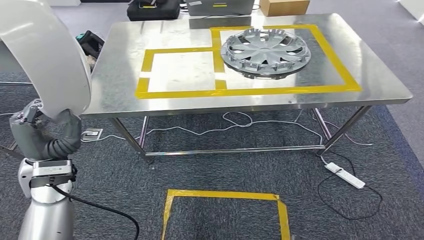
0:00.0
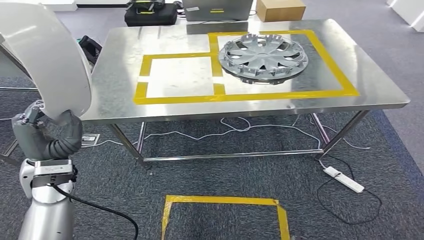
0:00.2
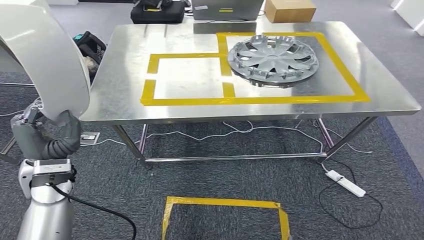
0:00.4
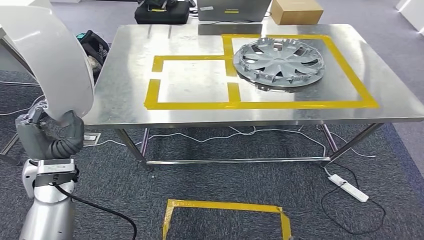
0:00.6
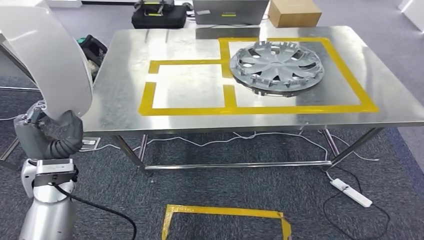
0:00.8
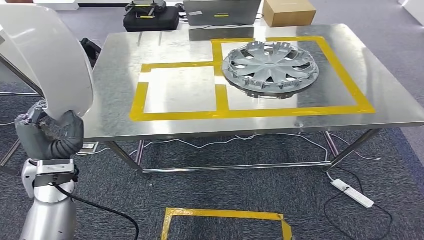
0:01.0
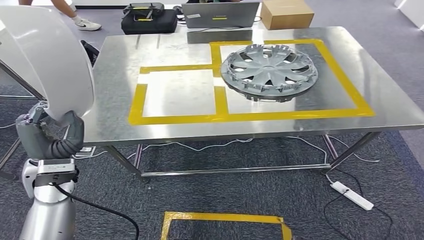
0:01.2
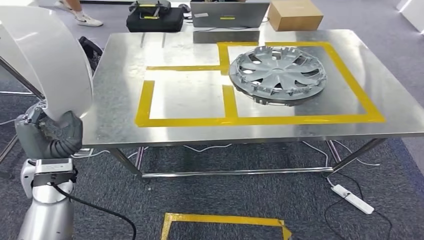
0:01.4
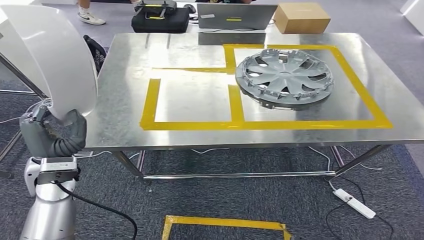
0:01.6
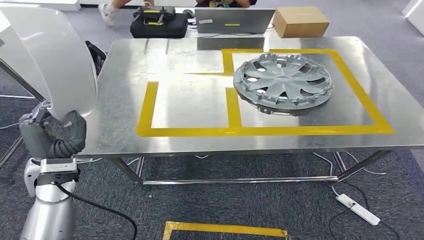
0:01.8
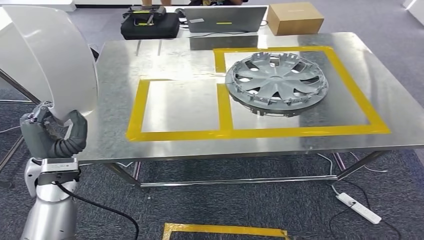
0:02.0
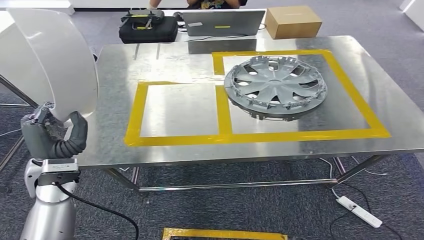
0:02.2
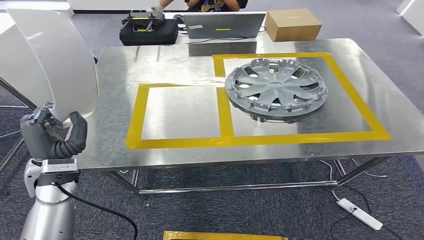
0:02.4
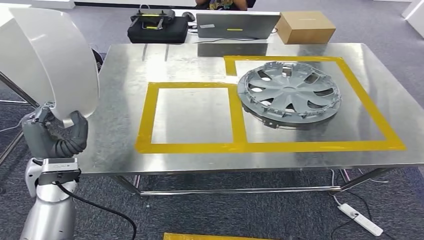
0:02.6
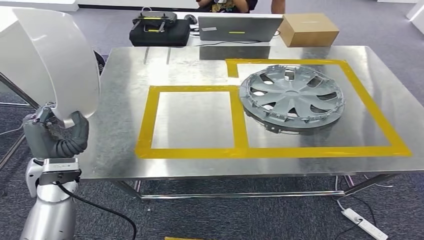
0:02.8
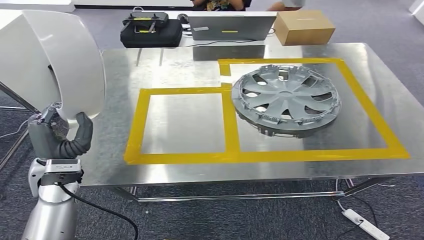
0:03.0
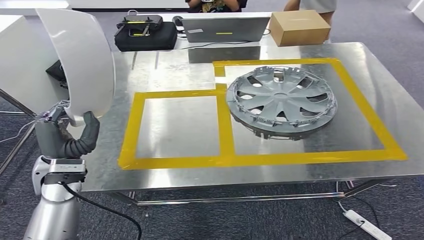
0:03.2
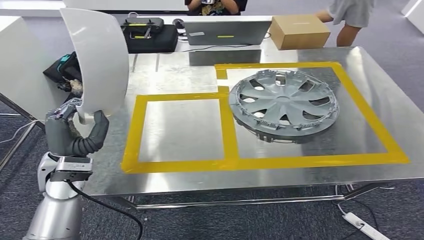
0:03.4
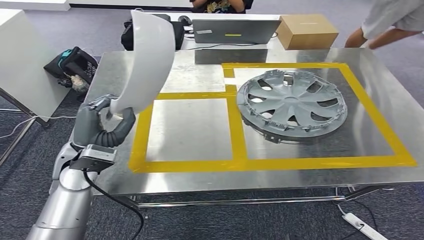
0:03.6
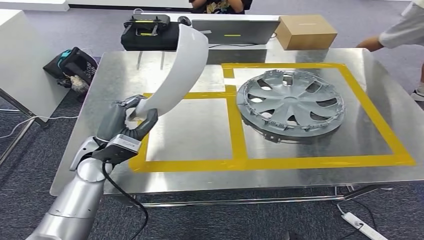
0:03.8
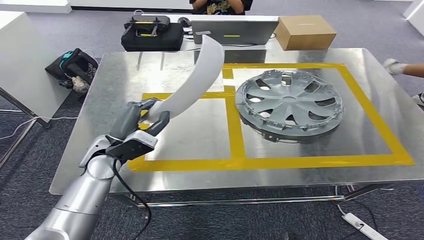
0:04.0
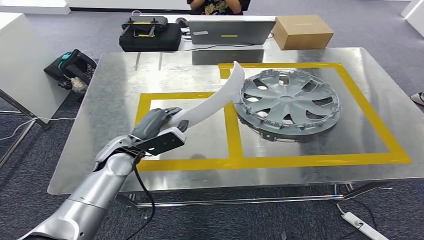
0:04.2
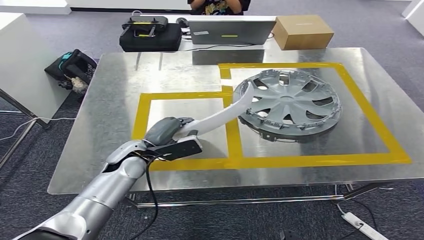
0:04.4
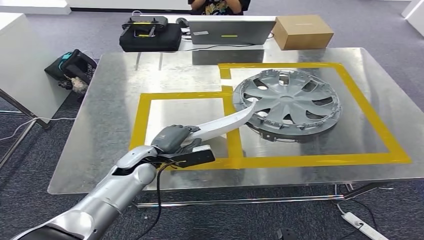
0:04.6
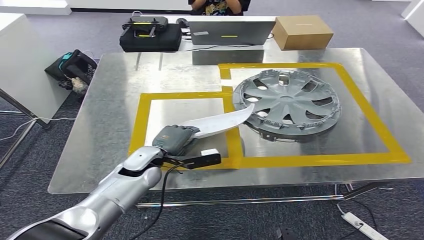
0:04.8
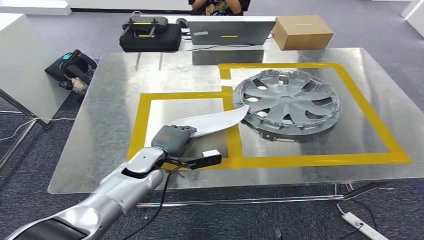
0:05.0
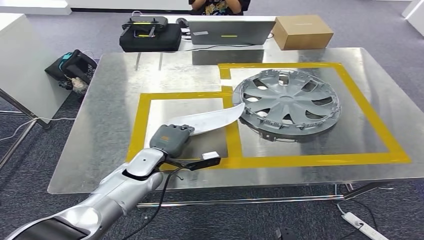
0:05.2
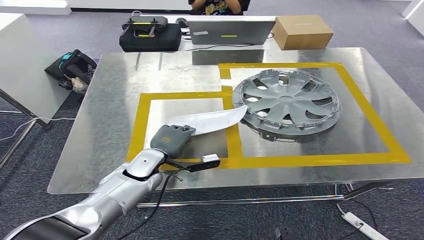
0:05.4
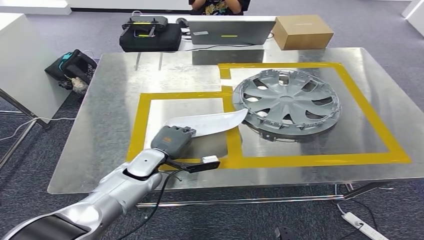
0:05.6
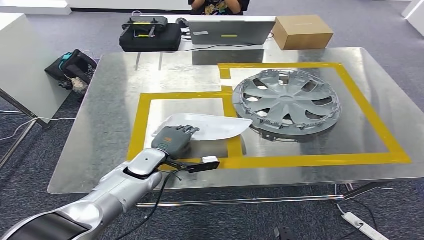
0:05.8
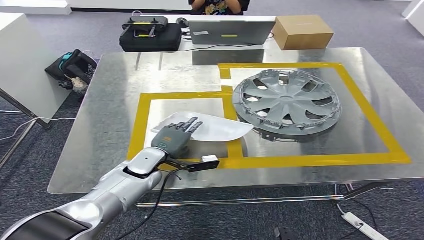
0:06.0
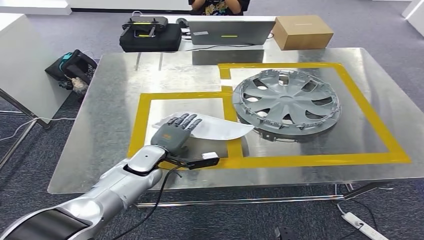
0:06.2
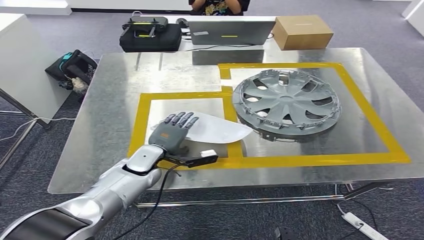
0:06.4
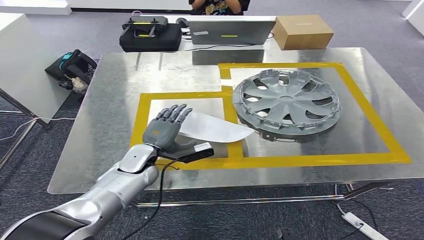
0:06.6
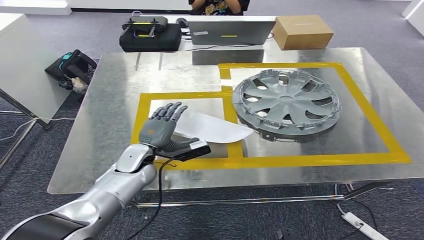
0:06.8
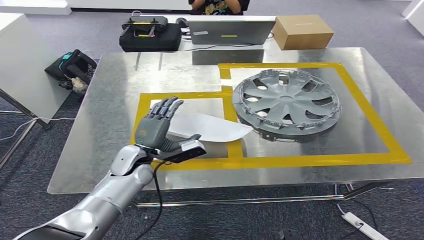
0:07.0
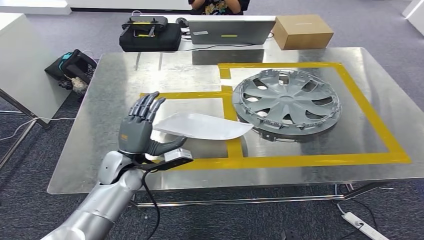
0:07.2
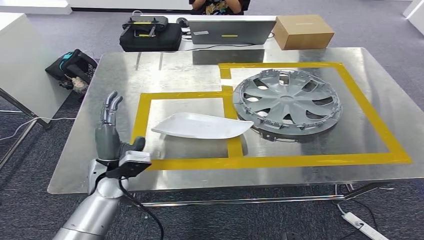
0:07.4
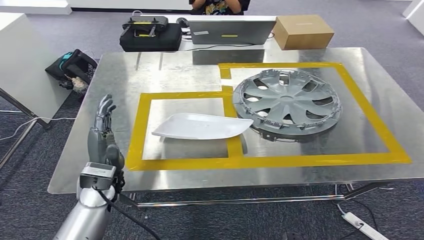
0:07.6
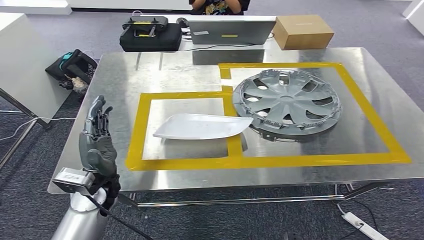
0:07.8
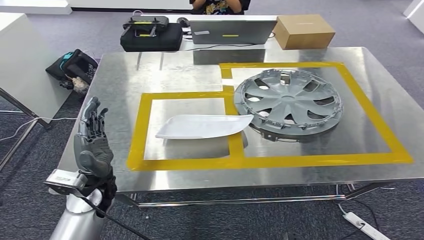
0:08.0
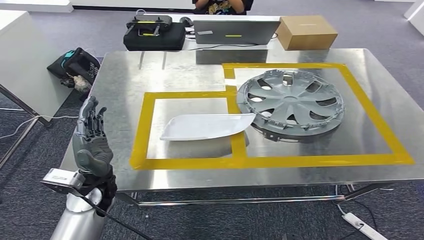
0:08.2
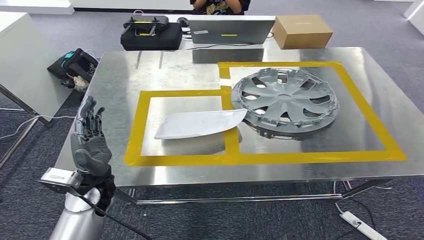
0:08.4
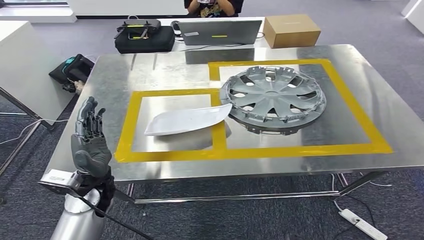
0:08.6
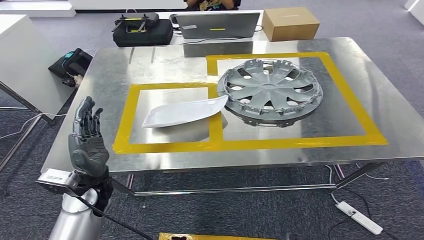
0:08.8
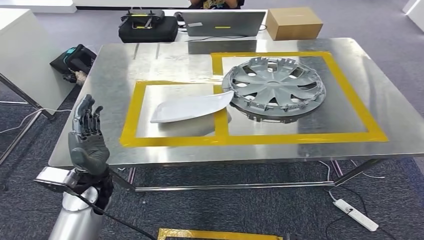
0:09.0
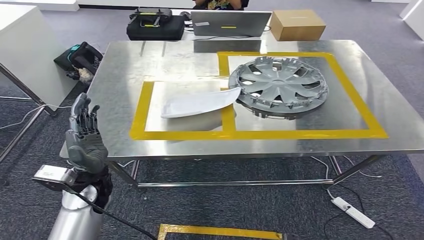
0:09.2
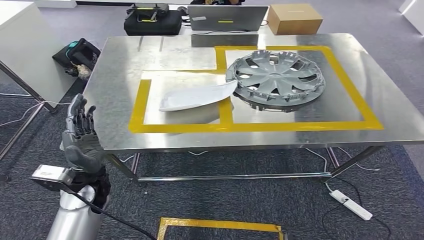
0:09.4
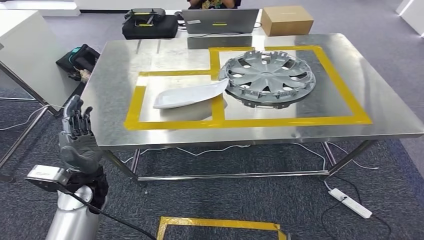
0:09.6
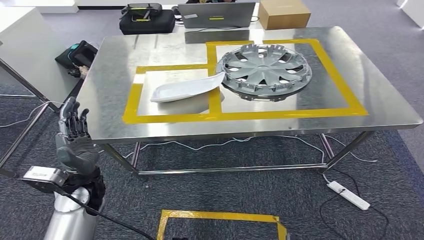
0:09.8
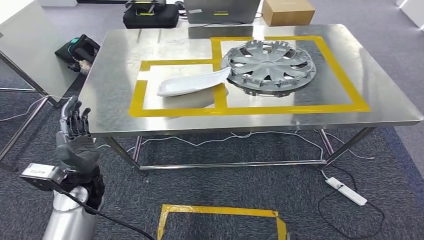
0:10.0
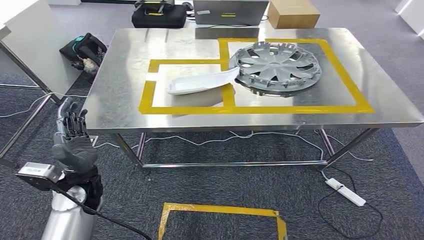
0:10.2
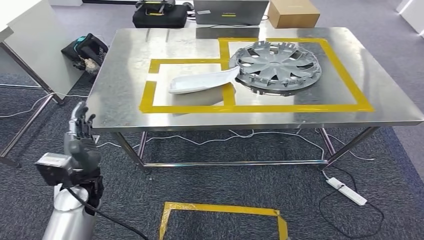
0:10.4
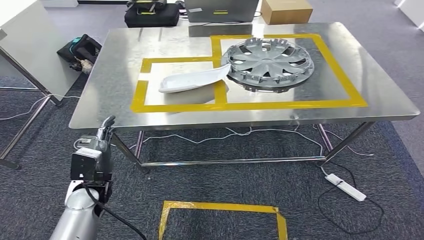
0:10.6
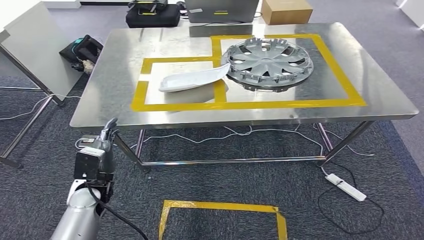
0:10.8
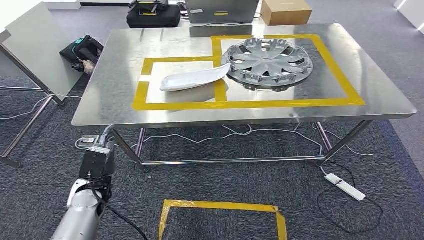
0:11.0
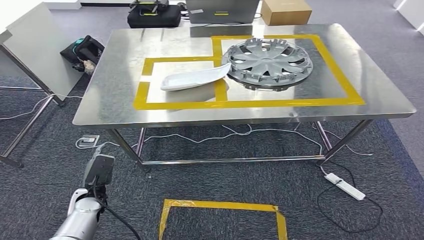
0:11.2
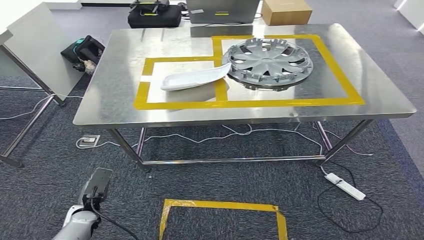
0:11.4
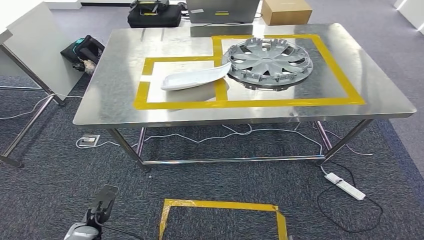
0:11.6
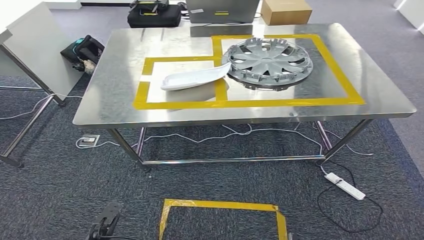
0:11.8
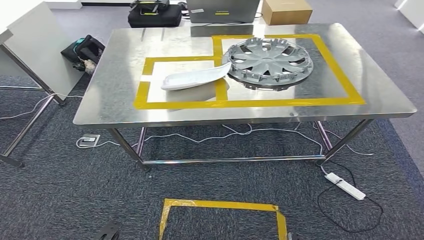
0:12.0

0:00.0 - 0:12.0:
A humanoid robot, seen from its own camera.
Step, 0:01.4 - 0:07.8: Insert the small parts into the corresponding holes on the workbench.
0:04.4 - 0:06.0: The left hand goes about 5 cm downward.
0:06.0 - 0:07.6: The left hand moves backward and upward, some 10 cm.

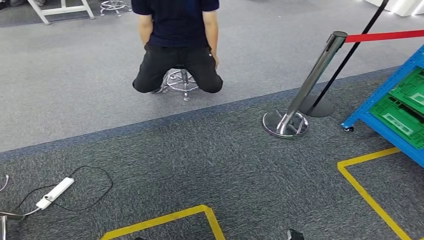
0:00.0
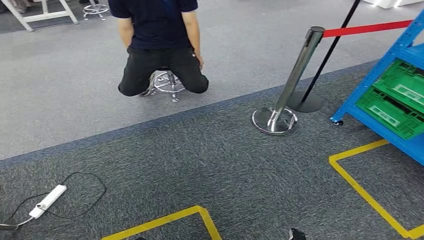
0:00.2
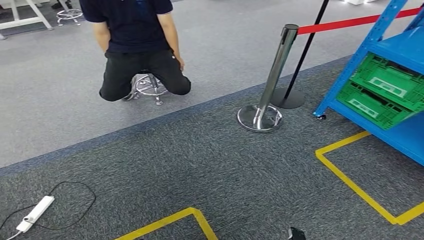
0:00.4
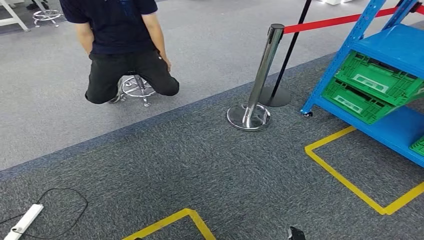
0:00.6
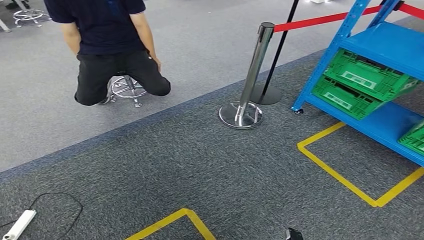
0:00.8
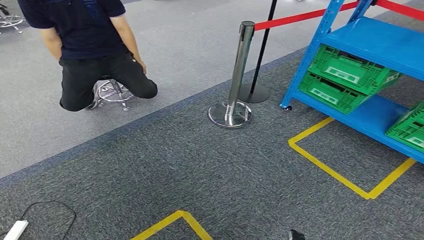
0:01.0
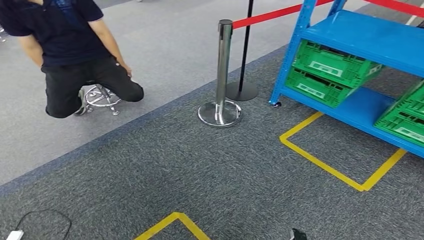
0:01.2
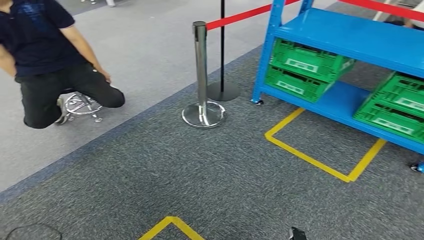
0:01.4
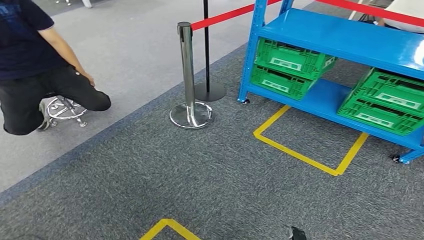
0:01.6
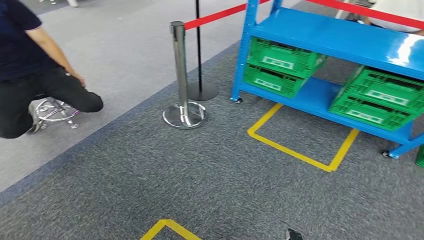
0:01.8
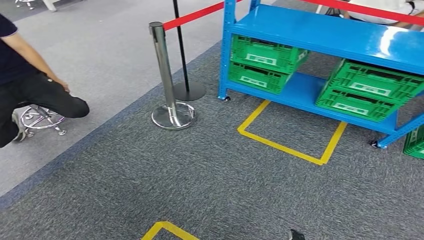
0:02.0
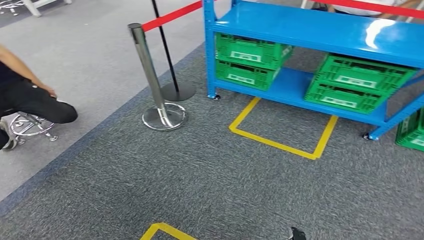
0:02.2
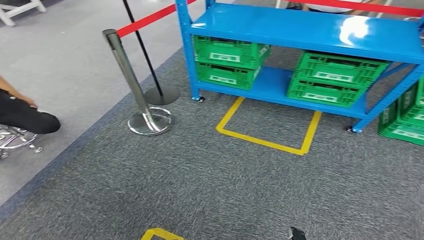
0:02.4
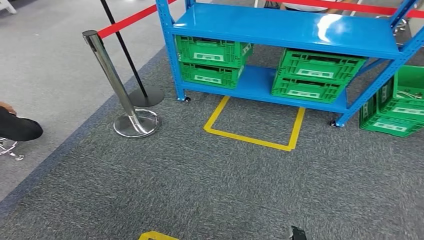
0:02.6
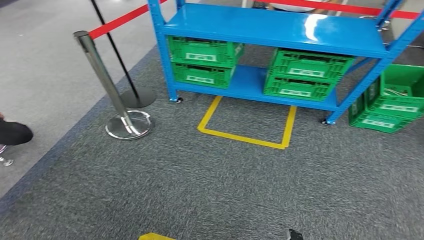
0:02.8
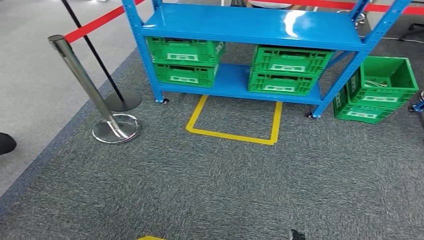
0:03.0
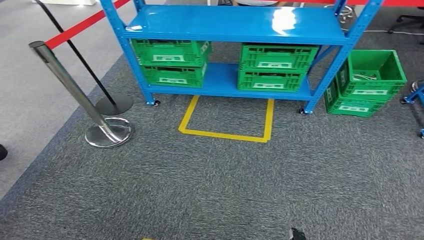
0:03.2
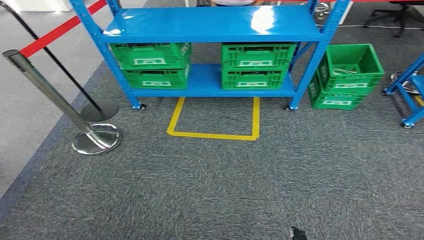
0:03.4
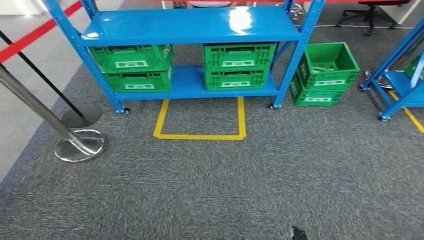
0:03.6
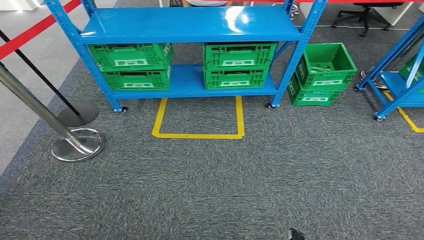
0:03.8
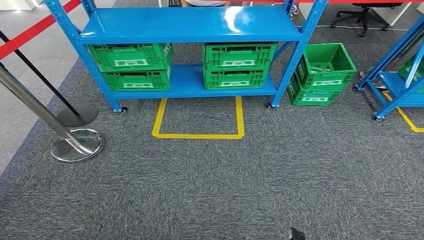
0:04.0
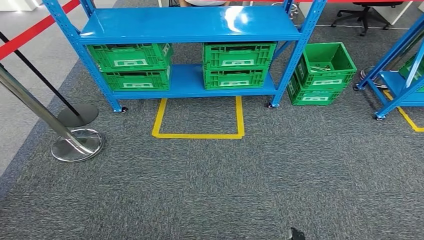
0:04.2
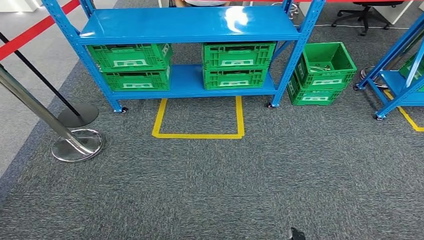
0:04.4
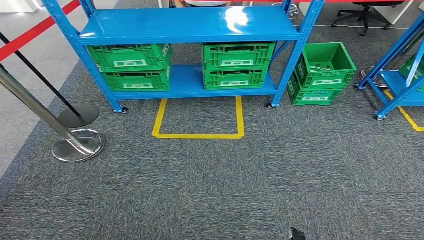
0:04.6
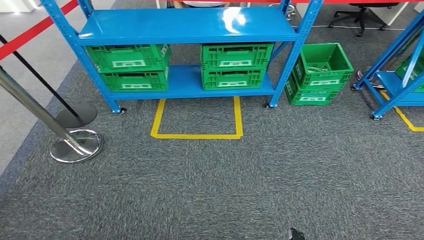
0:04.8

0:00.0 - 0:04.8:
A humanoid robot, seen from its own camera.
Step, 0:00.0 - 0:04.8: Move to the initial position at the workbench.
